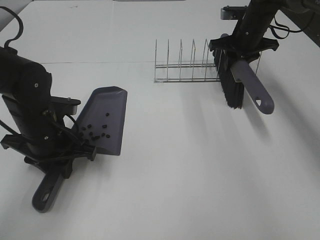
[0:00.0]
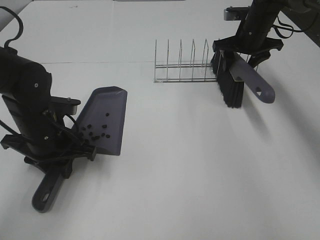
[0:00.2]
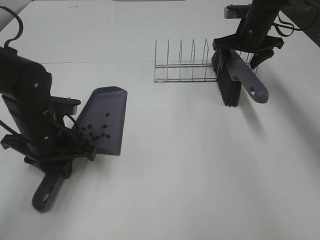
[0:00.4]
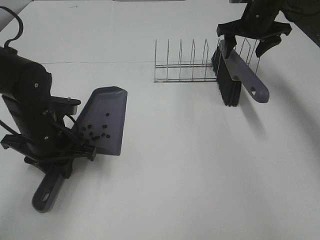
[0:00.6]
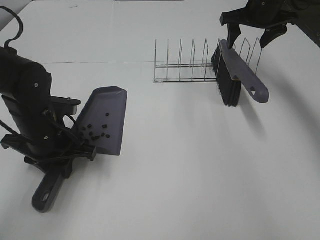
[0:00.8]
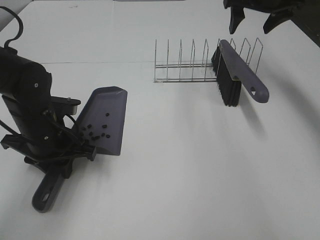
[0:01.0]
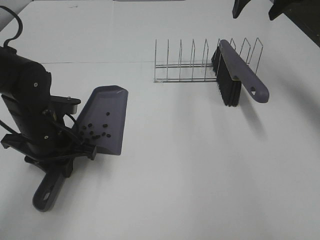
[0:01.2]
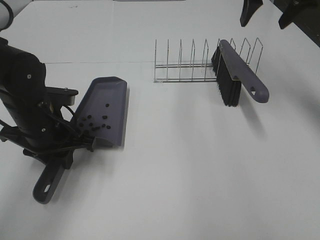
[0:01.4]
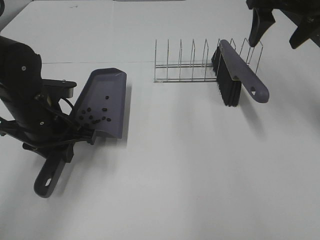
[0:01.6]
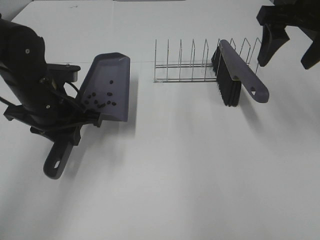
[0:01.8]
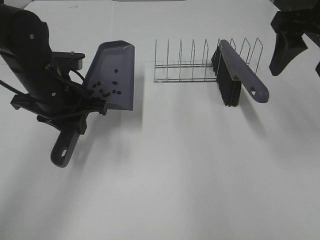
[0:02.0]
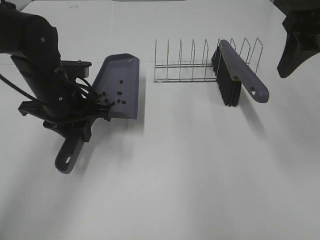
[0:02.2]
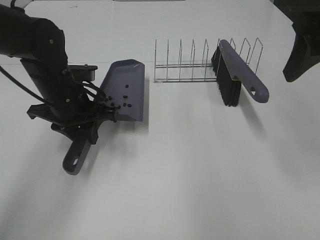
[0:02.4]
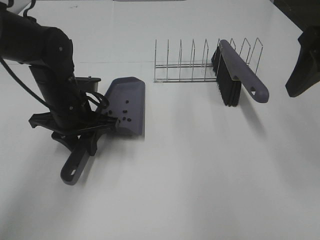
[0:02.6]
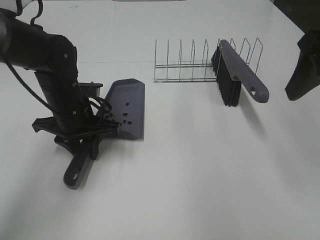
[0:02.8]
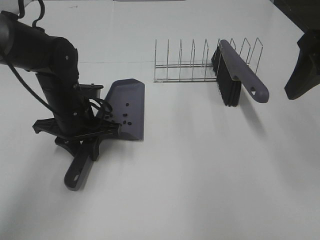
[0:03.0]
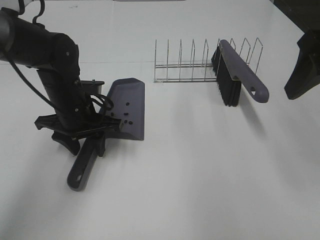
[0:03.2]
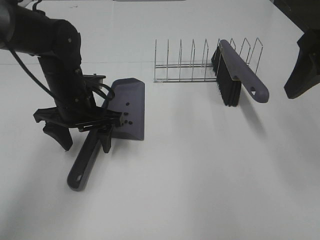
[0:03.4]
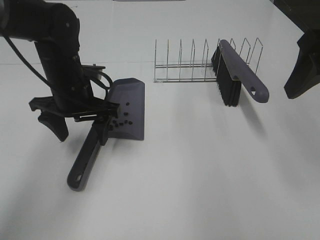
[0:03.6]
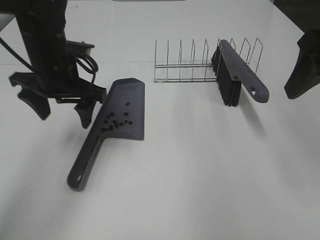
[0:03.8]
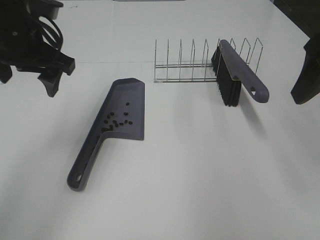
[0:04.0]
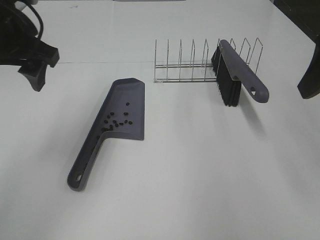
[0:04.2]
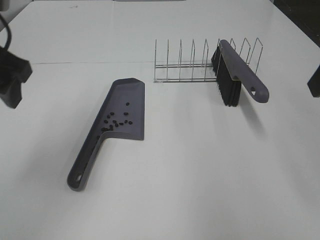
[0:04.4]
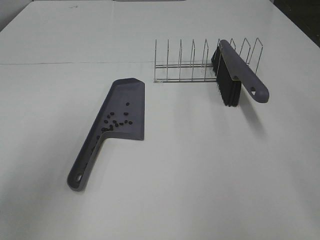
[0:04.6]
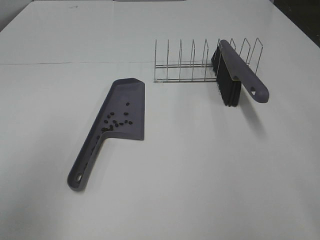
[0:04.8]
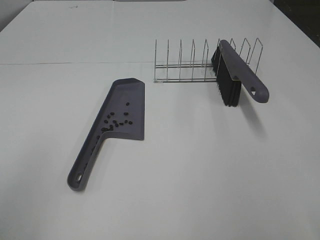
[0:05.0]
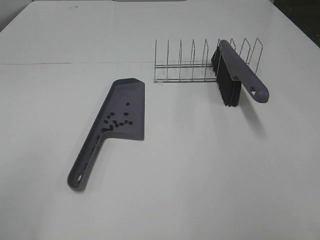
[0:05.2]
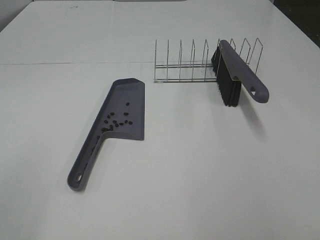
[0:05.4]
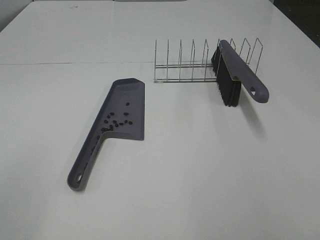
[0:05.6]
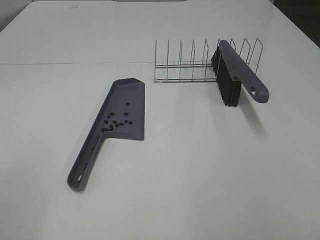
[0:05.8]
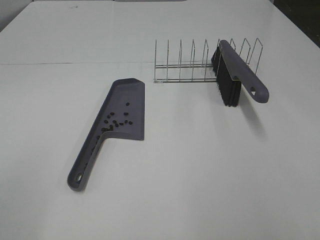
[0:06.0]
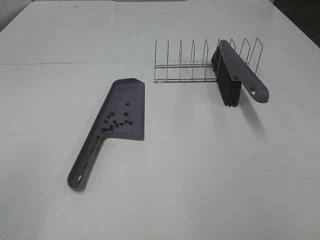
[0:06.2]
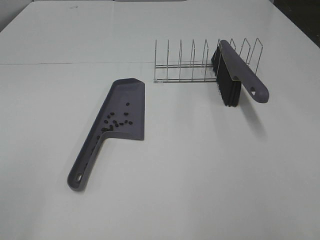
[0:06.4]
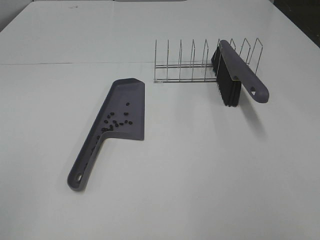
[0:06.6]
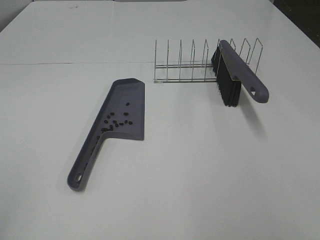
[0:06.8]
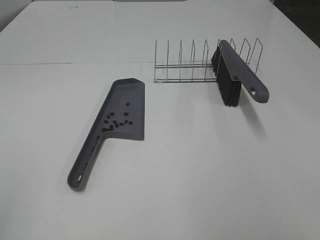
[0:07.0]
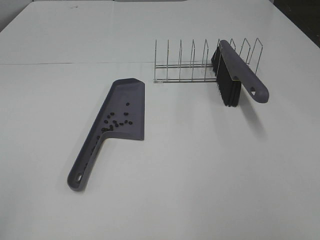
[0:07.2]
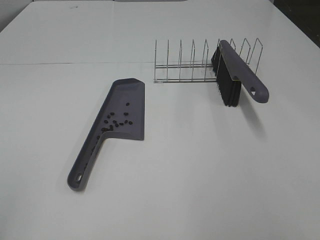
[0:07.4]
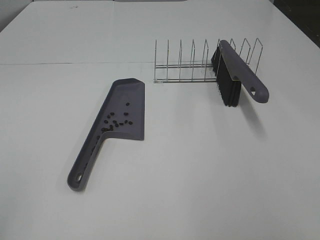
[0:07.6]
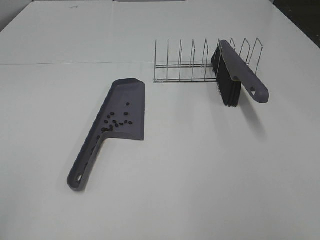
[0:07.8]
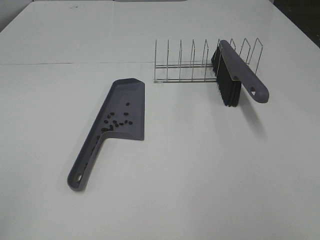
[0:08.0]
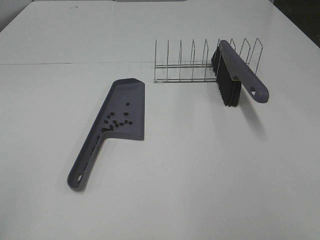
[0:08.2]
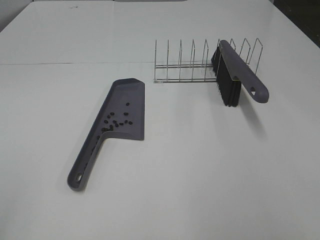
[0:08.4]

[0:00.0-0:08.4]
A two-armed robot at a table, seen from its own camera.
Task of the whole recording: Sweep Coffee Bean.
Step, 0:00.4 to 0:03.0: Left hand:place the dustpan on the table.
0:00.0 to 0:01.4: The right gripper moves upward and backward, about 20 cm, and opens.
0:01.4 to 0:02.8: The right gripper is displaced backward by approximately 20 cm. The left gripper shifts by about 5 cm.
0:02.8 to 0:04.2: The left gripper travels upward by some 20 cm, and opens its fingers.
0:04.2 to 0:05.6: The left gripper heads backward and to the left, covering approximately 30 cm; the right gripper moves backward, some 20 cm.
0:07.0 to 0:08.4: Both grippers stay put.

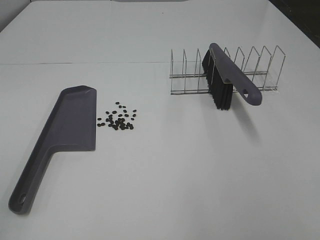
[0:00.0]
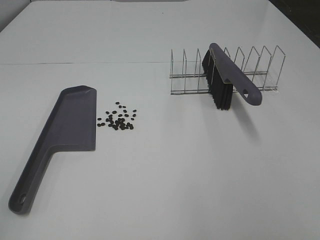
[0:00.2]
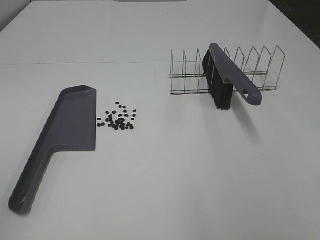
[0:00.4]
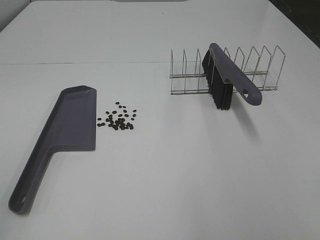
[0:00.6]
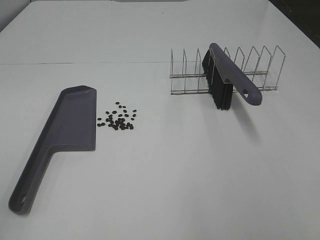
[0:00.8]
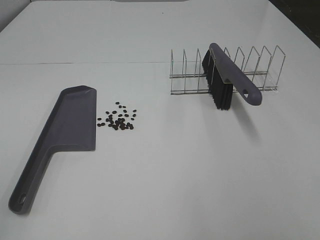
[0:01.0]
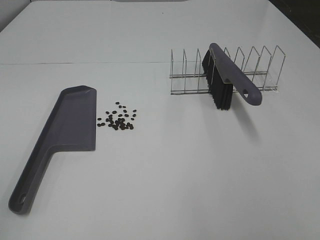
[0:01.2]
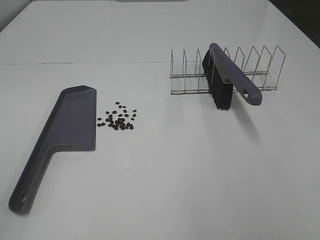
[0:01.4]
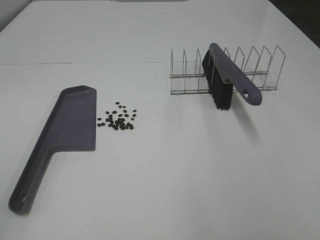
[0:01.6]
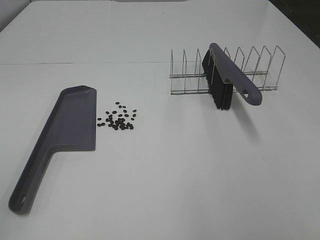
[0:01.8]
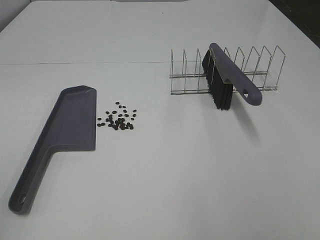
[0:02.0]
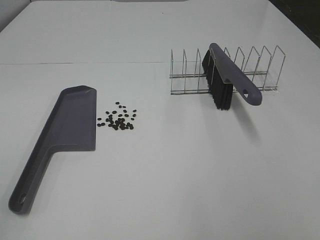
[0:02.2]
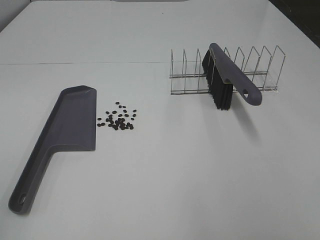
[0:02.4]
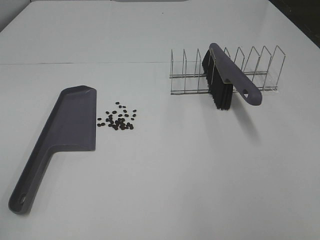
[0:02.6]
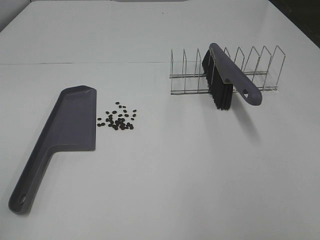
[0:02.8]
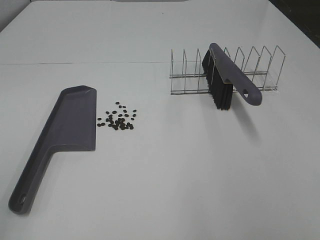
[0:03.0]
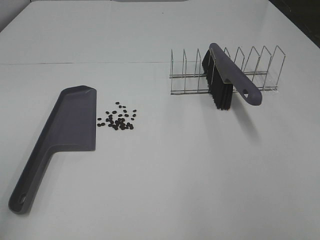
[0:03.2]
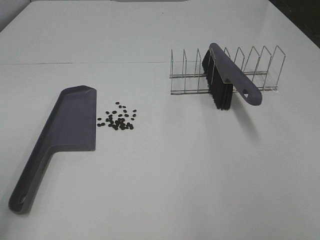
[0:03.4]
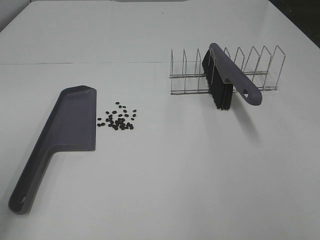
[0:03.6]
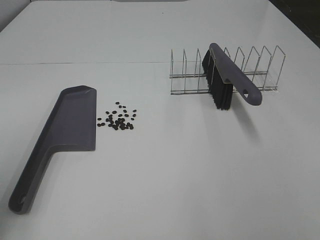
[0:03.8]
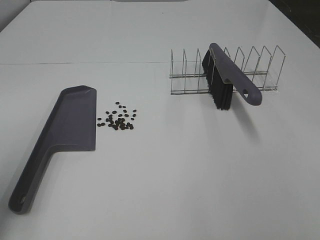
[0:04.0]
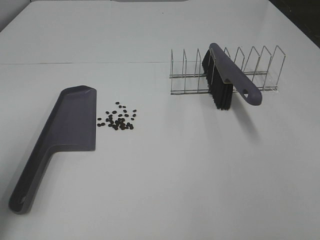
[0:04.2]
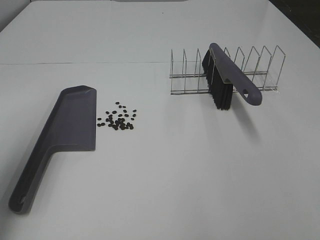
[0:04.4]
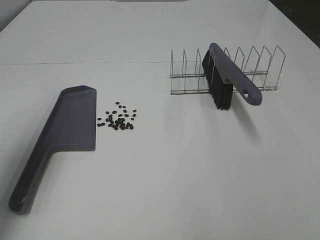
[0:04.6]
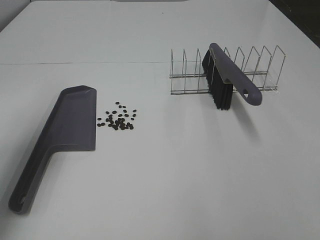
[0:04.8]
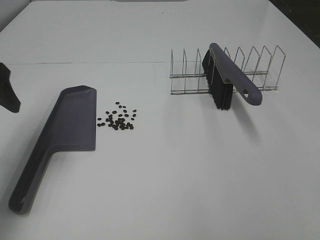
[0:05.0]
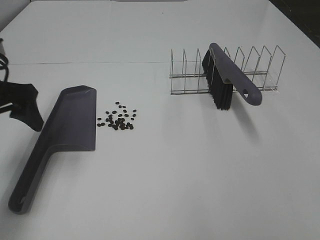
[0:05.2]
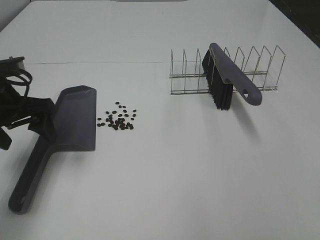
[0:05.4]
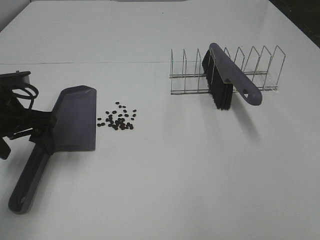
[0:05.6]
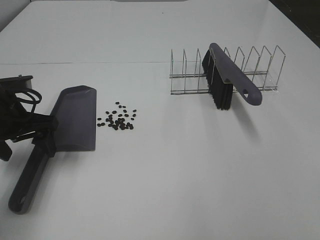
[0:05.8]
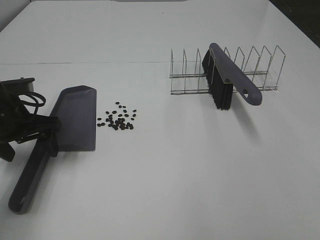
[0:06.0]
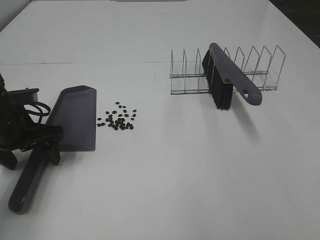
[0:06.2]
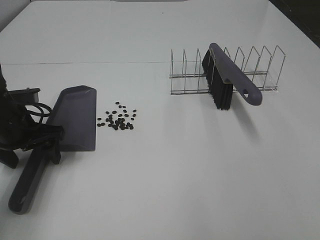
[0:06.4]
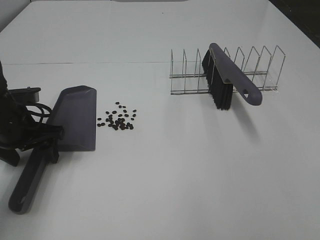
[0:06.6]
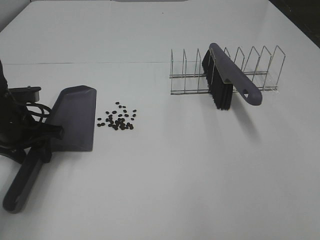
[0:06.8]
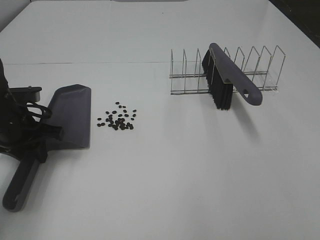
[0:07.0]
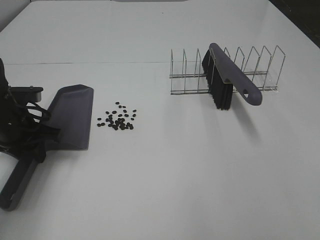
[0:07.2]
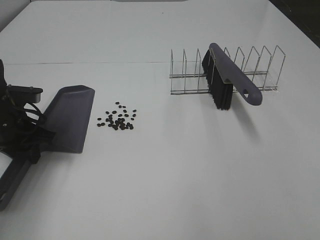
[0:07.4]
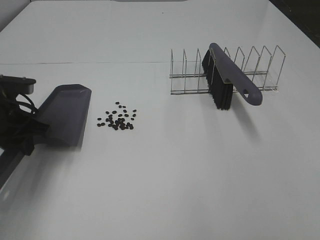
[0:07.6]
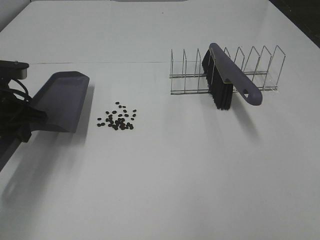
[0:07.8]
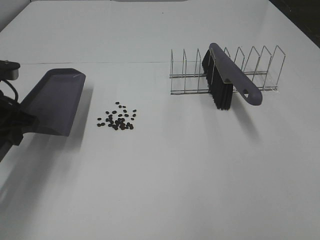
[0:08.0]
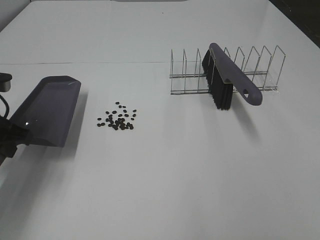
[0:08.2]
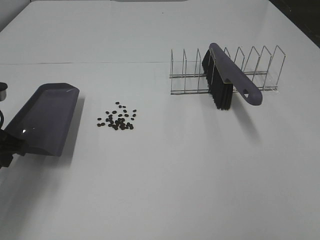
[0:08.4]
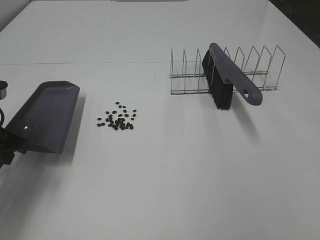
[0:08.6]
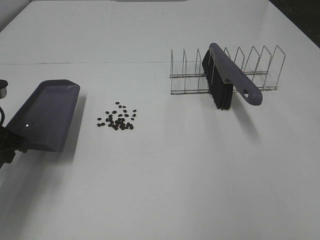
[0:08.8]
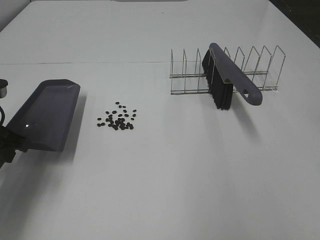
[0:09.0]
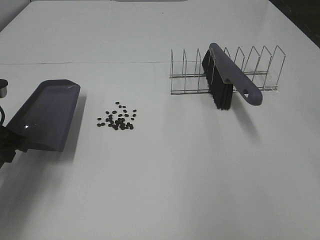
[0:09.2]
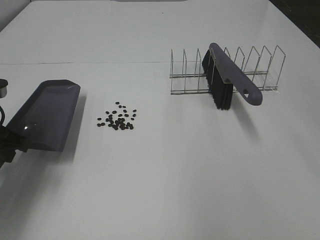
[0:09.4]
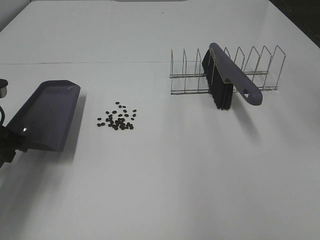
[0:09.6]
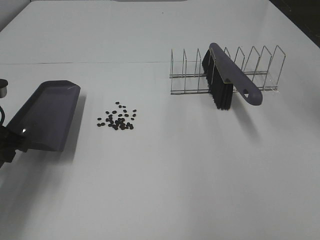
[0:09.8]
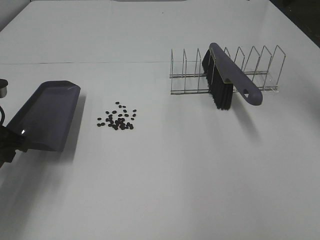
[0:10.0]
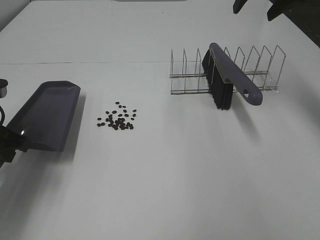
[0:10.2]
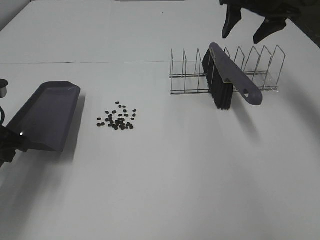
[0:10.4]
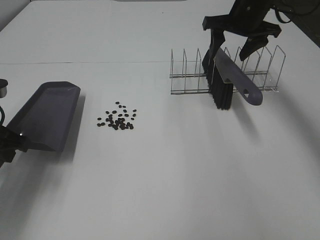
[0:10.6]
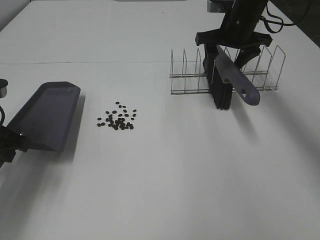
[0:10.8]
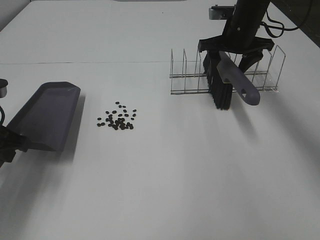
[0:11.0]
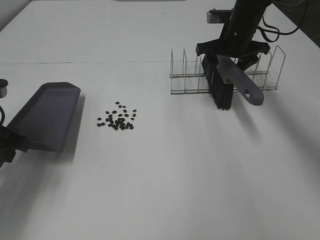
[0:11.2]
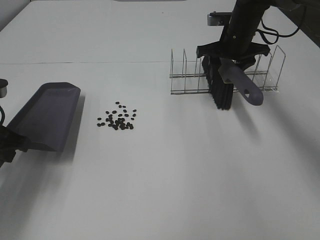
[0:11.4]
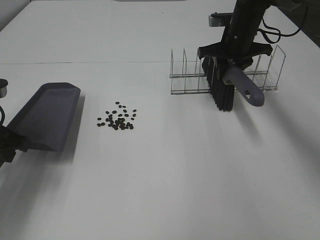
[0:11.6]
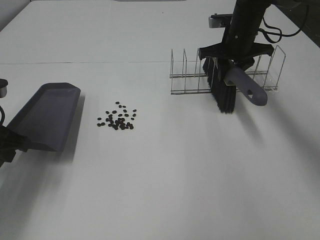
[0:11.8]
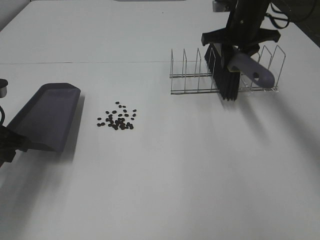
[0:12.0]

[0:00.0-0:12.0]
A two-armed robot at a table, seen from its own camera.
Task of the whole recording: Sweep Coffee Bean.
Step, 0:00.0 to 0:07.0: Left hand: grab the dustpan.
Step, 0:07.8 to 0:11.6: Right hand:grab the broom.
0:00.0 to 0:01.6: Both grippers stay put.
0:03.0 to 0:04.4: The left gripper travels forward by some 20 cm.
0:04.4 to 0:06.0: The left gripper goes about 20 cm downward and forward.
0:06.0 to 0:07.6: The left gripper closes up.
0:07.6 to 0:09.0: The left gripper shifts approximately 5 cm backward.
0:09.0 to 0:10.4: The right gripper is displaced forward by some 35 cm.
0:10.4 to 0:12.0: The right gripper closes.

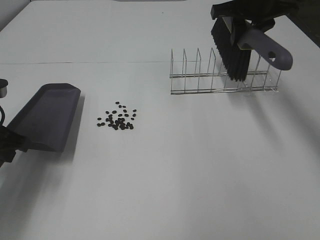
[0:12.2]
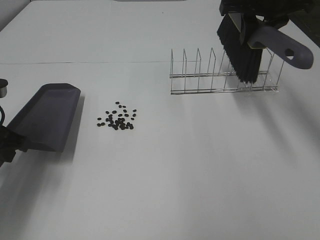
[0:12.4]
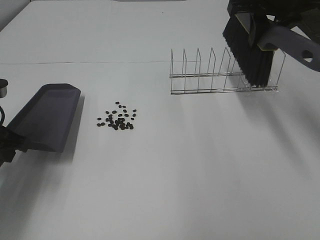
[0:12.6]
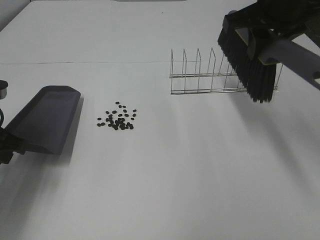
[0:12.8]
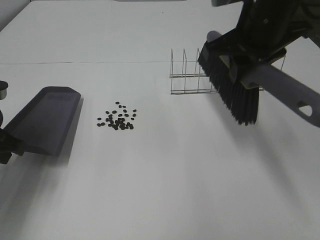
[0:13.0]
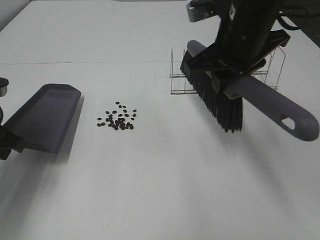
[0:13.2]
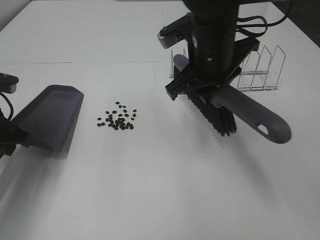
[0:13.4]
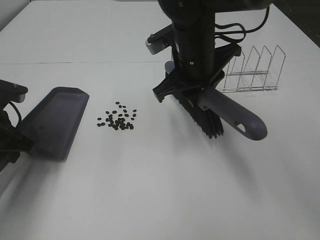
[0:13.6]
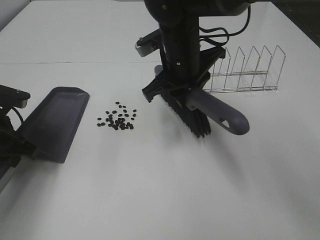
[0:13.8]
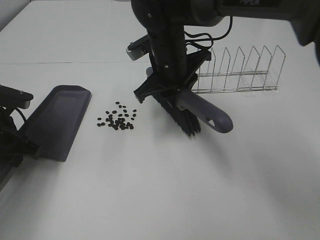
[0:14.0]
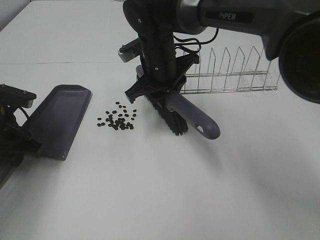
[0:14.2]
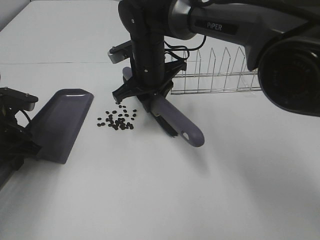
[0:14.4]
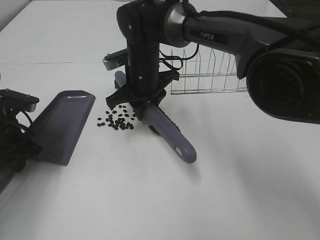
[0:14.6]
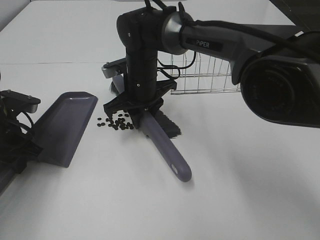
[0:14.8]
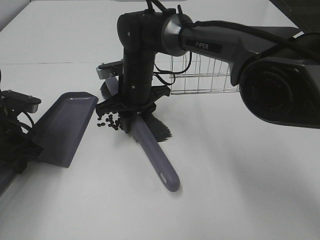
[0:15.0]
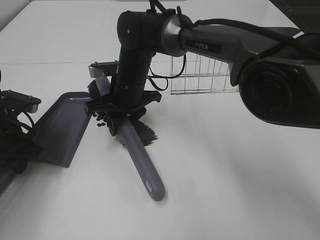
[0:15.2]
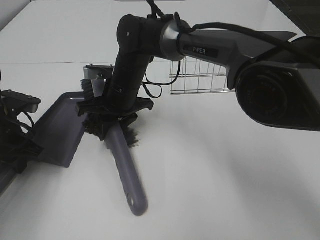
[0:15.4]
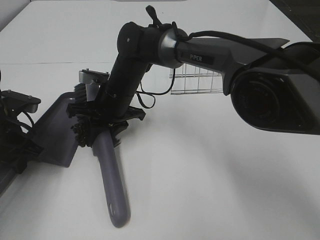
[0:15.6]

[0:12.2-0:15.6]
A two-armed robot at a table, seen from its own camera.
Task of the whole recording: Sweep Coffee Bean.
Step, 0:12.2 to 0:14.8: Left hand: move the dustpan to the left side of the coffee beans.
0:12.2 to 0:13.8: The right gripper moves to the left, backward and downward, approximately 20 cm.
0:13.8 to 0:15.6: The right gripper heads to the left and downward, covering some 15 cm.
